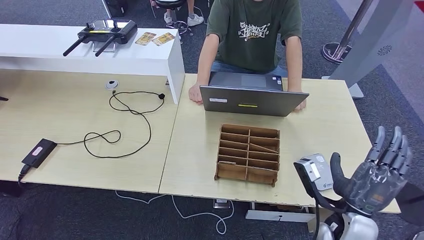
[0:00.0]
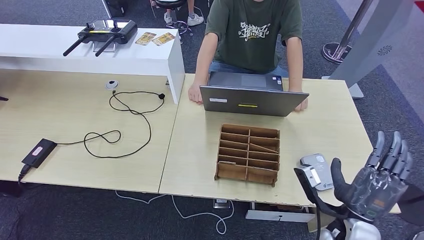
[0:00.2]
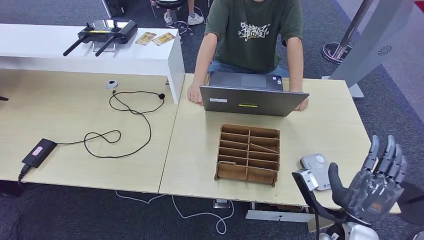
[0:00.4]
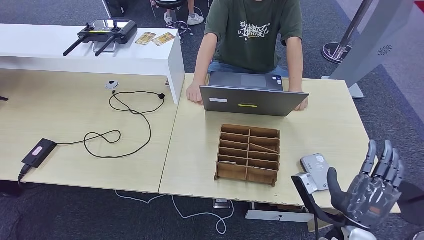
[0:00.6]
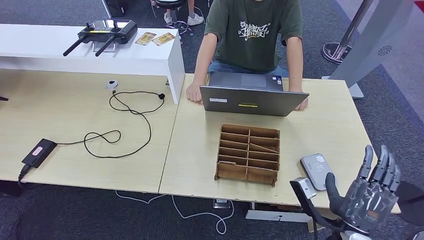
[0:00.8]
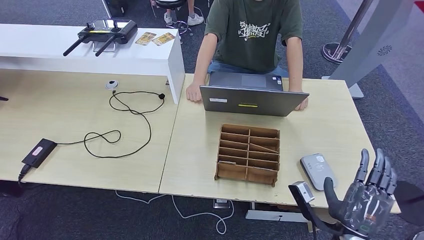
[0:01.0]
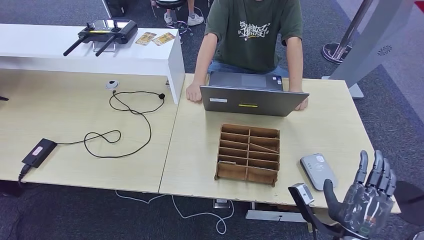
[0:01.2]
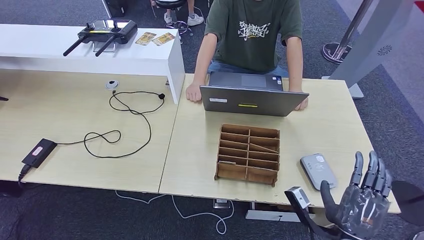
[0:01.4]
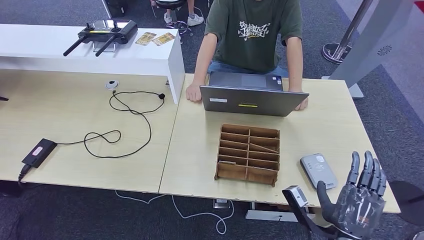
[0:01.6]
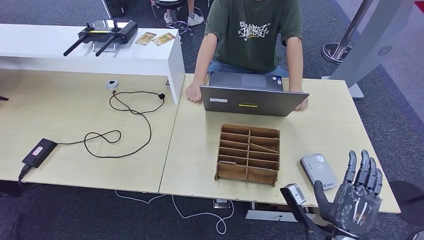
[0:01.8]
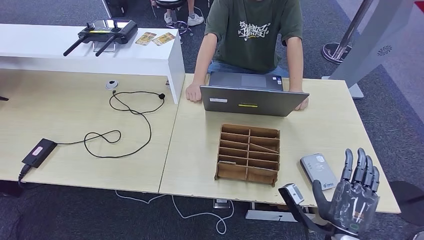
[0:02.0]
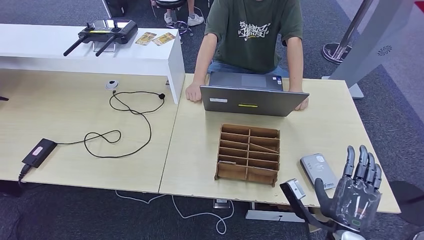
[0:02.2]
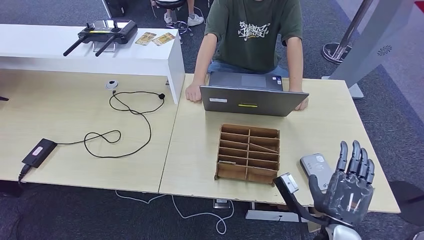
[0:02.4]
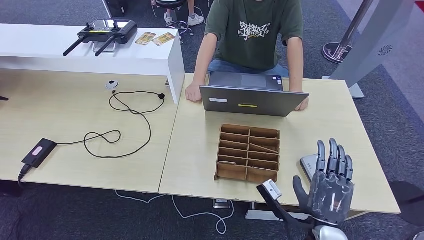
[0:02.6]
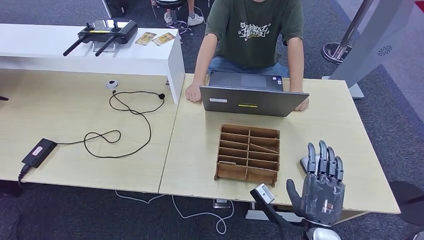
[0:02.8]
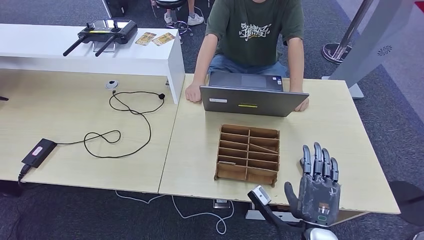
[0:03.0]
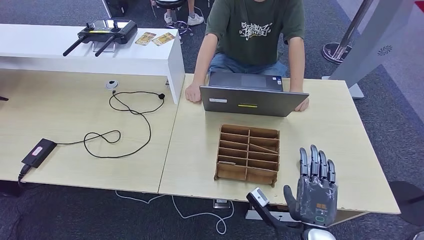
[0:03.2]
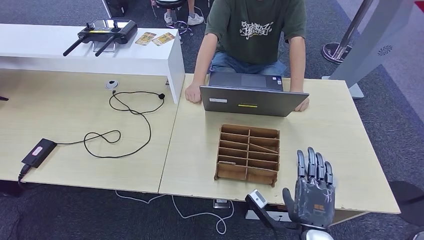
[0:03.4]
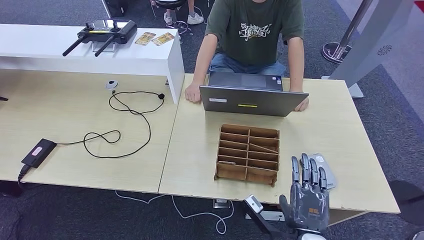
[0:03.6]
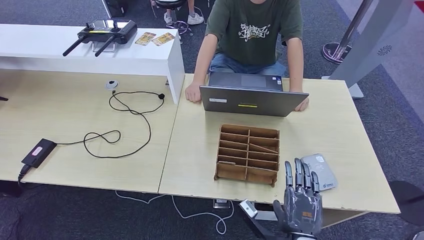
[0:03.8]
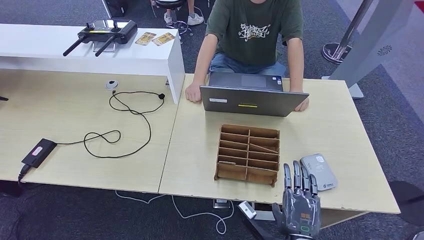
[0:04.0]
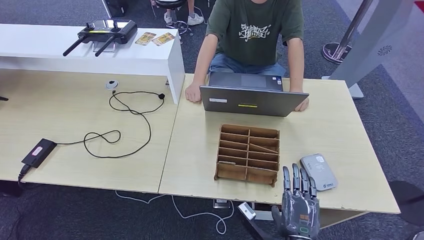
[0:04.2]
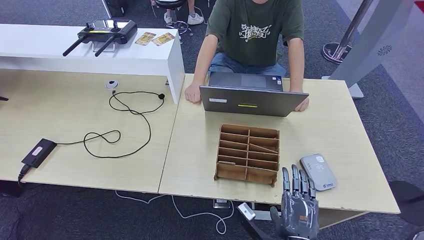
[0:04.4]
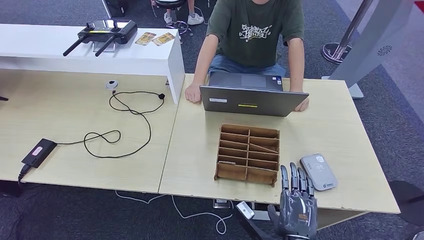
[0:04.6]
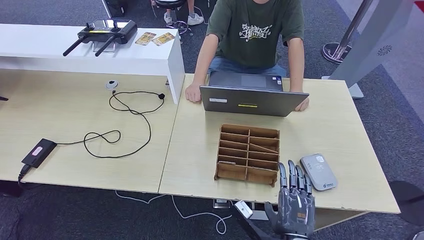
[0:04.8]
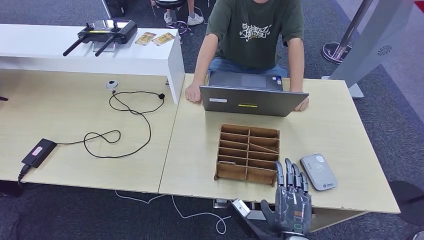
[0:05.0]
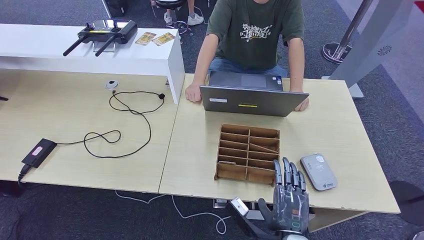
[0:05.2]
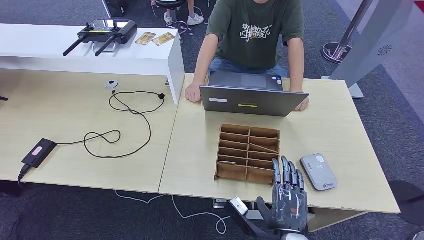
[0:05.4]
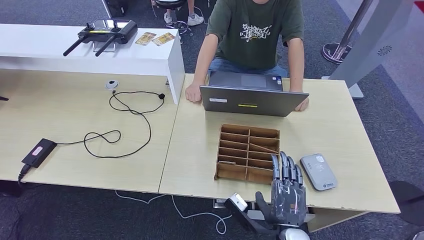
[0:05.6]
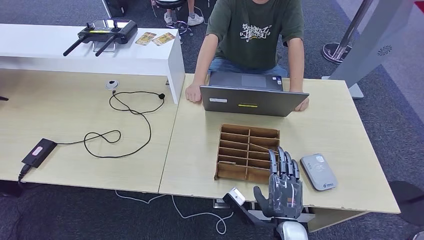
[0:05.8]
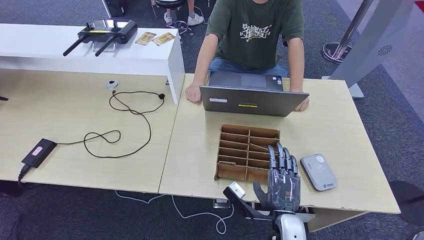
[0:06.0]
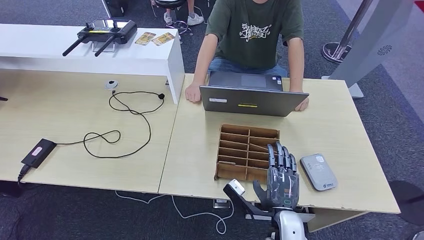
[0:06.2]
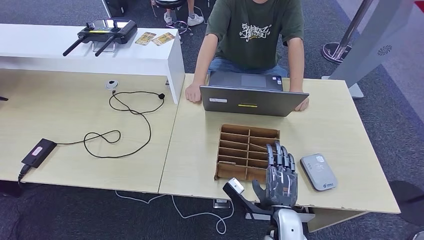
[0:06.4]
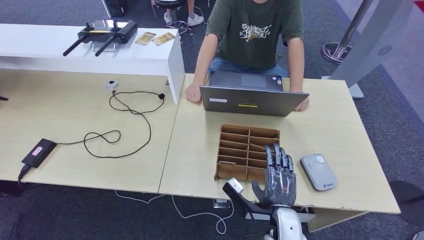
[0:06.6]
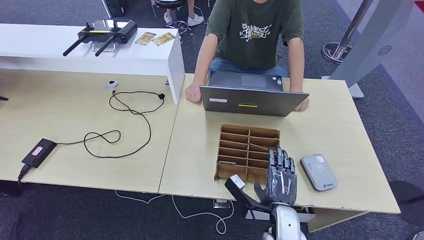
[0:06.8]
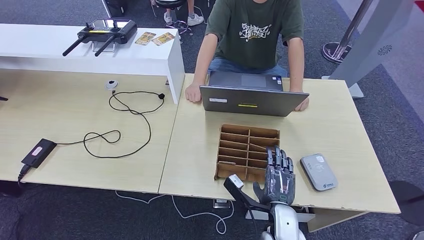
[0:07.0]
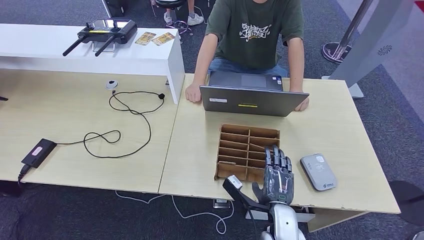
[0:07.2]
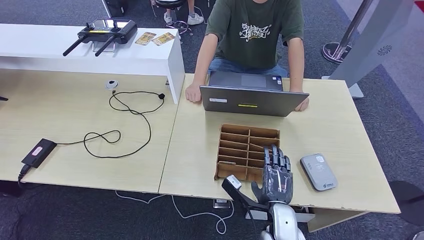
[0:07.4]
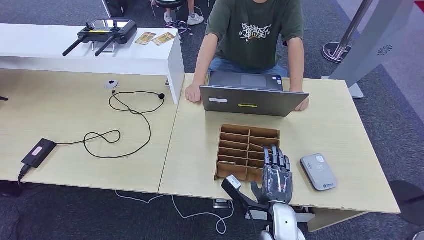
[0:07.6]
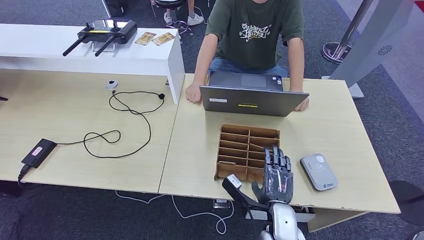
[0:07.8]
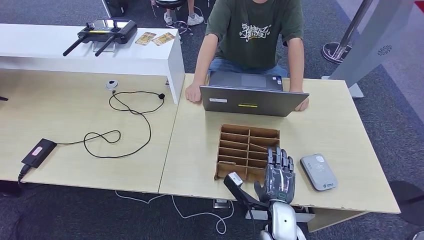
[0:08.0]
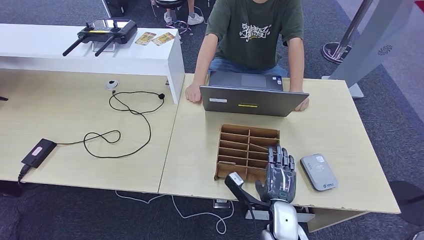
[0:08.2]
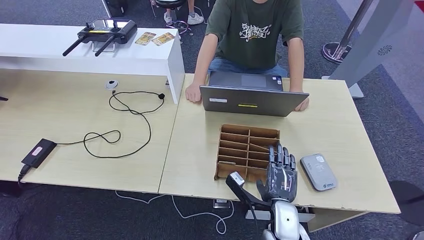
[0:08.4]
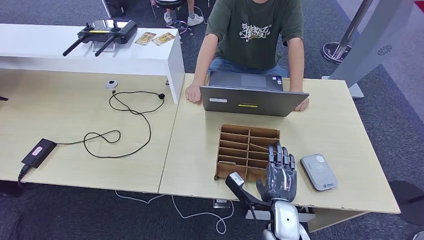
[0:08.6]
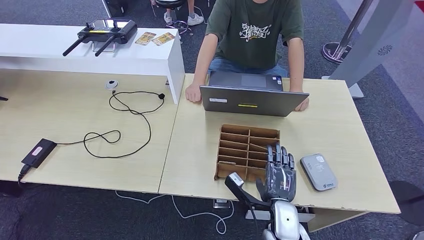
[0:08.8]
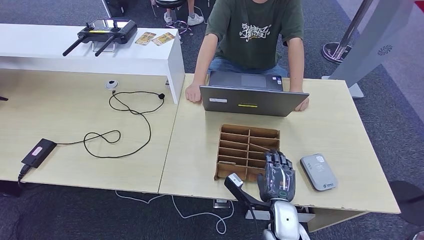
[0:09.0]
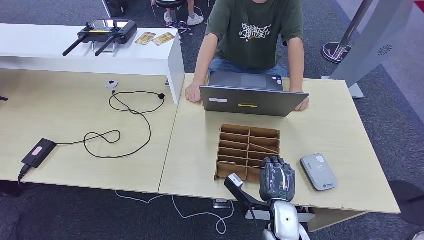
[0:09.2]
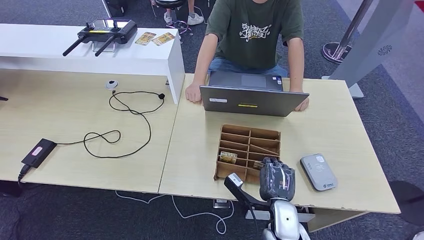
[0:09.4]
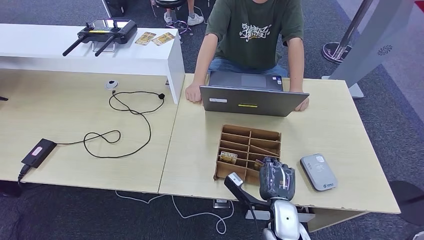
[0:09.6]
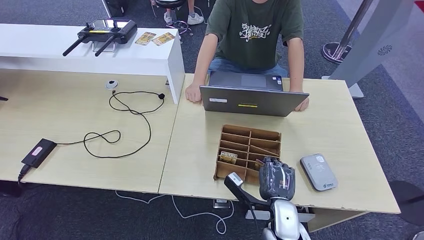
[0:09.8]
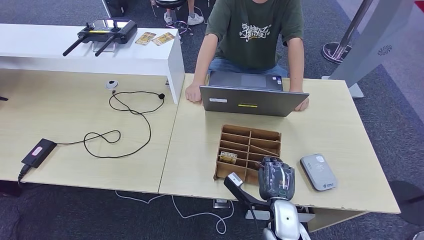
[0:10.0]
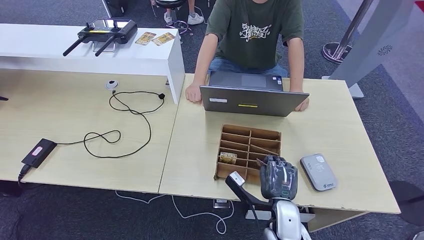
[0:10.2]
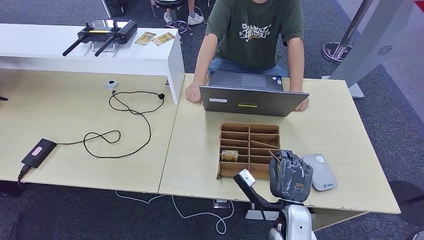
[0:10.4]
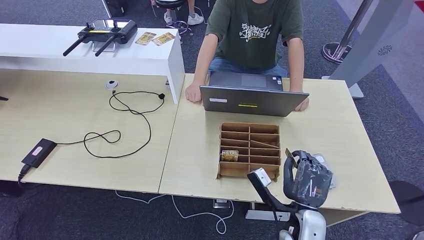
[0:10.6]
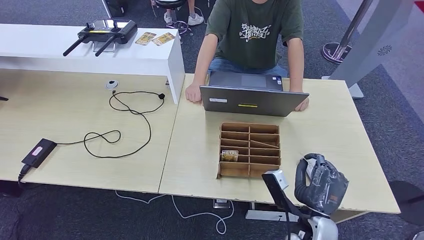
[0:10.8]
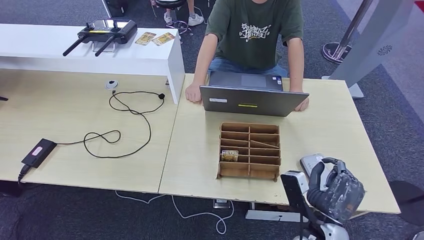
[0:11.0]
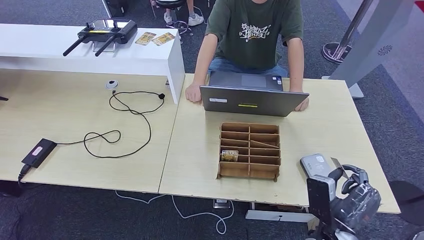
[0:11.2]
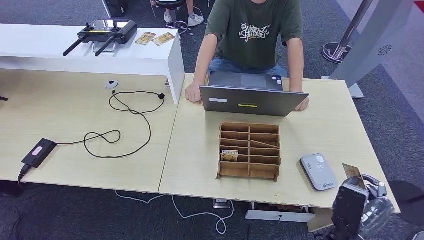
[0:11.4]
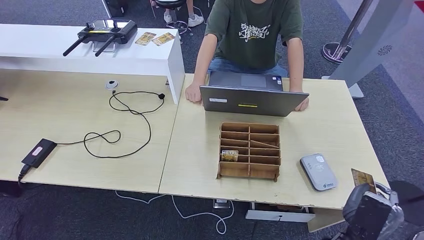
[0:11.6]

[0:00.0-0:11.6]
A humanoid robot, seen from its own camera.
Step, 0:08.6 to 0:10.2: Pick up the room key from the key card box.
0:00.0 to 0:01.4: The right hand travels backward by about 5 cm.
0:01.4 to 0:02.8: The right hand travels to the left by roughly 5 cm.
0:02.8 to 0:04.4: The right hand moves roughly 5 cm.
0:04.4 to 0:05.8: The right hand shifts by approximately 5 cm.
0:05.8 to 0:07.2: The right hand moves approximately 5 cm.
0:07.2 to 0:08.8: The two hands keep their place.
0:08.8 to 0:10.2: There are only small adjustments of the hands.
0:10.2 to 0:11.6: The right hand goes roughly 10 cm to the right and backward.

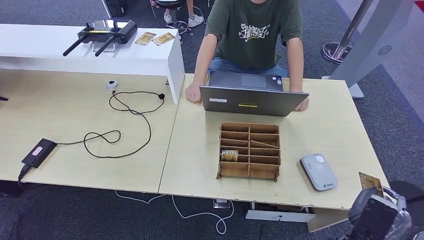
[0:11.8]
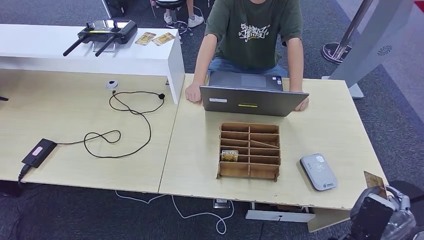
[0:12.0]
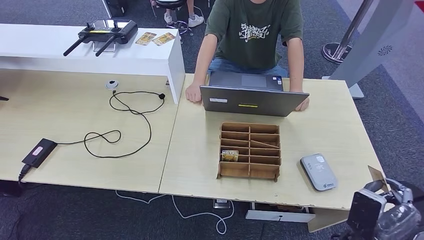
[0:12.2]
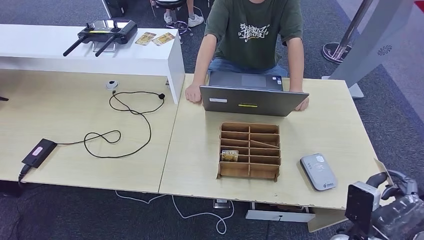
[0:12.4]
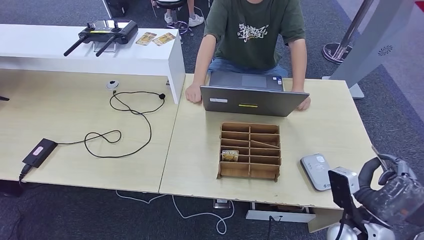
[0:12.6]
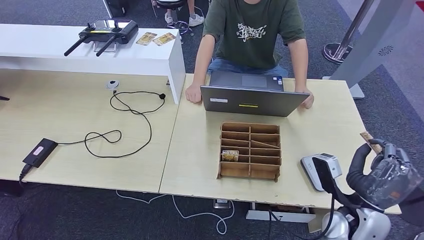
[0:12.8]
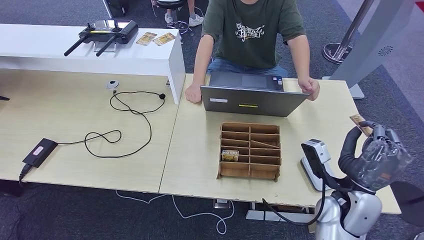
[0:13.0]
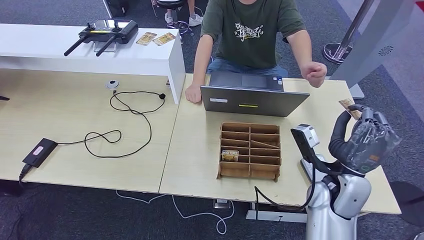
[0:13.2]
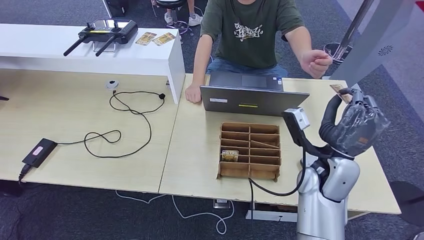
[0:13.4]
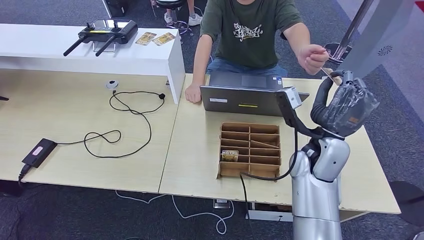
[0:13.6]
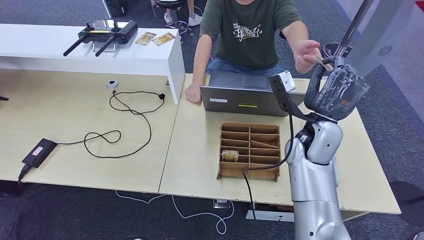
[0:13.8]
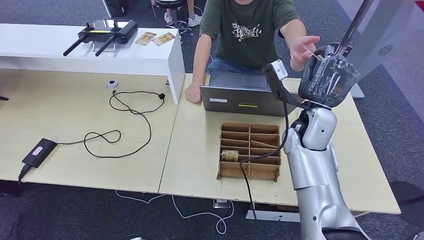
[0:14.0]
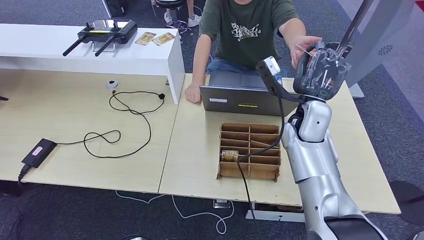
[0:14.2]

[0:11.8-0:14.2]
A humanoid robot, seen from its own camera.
Step, 0:11.8 to 0:14.2: Hand the room key to the person.
0:11.8 to 0:13.0: The right hand is displaced forward and upward by approximately 10 cm.
0:13.0 to 0:14.2: The right hand is displaced forward, upward and to the left by about 20 cm.
